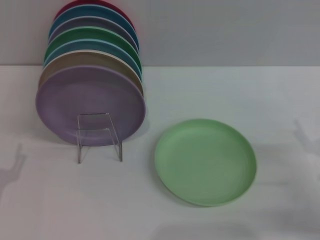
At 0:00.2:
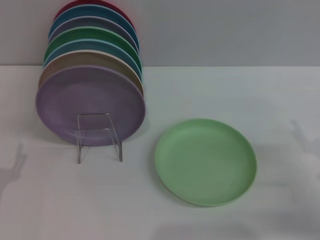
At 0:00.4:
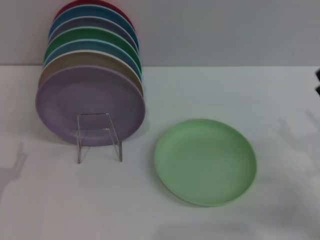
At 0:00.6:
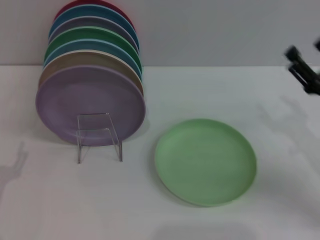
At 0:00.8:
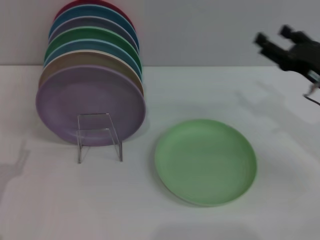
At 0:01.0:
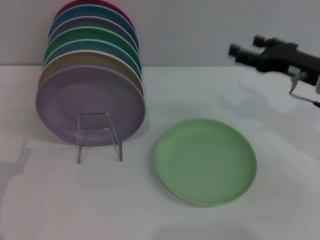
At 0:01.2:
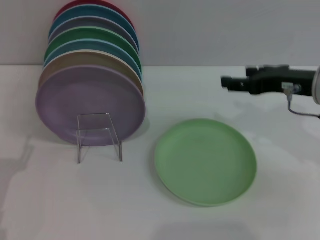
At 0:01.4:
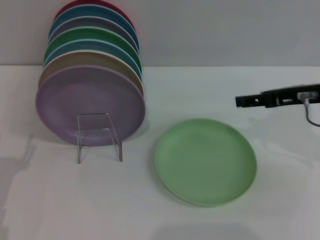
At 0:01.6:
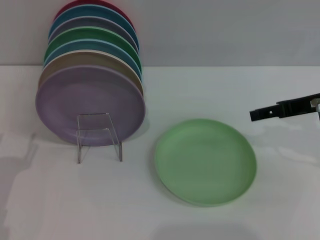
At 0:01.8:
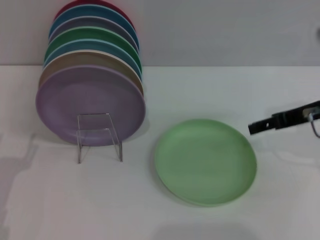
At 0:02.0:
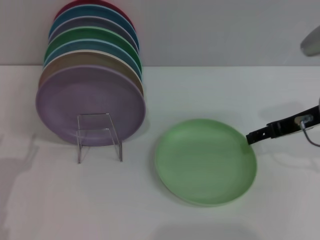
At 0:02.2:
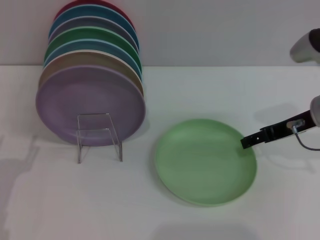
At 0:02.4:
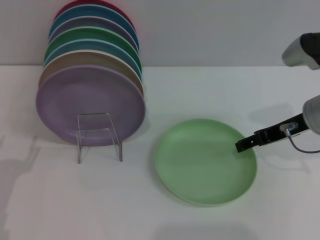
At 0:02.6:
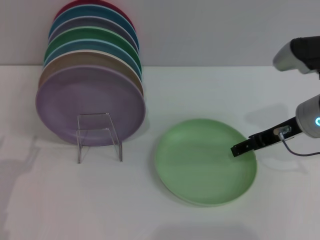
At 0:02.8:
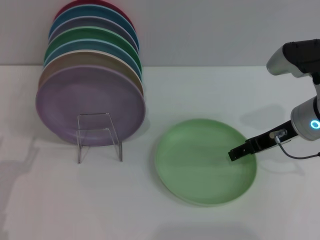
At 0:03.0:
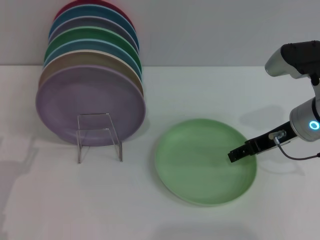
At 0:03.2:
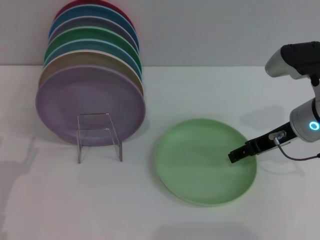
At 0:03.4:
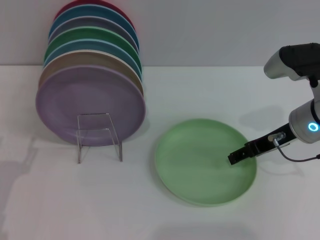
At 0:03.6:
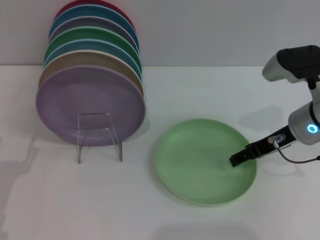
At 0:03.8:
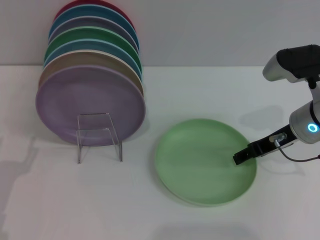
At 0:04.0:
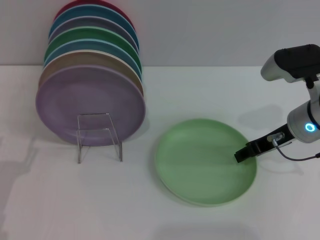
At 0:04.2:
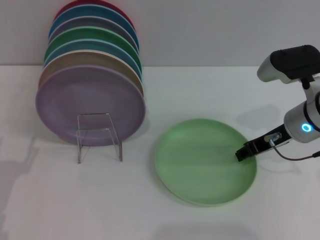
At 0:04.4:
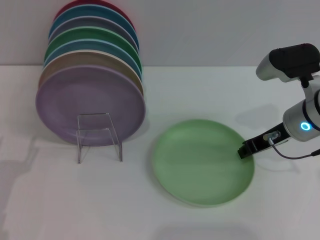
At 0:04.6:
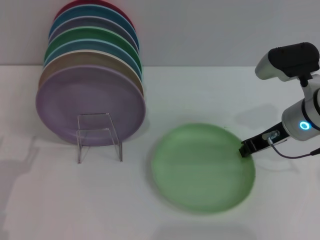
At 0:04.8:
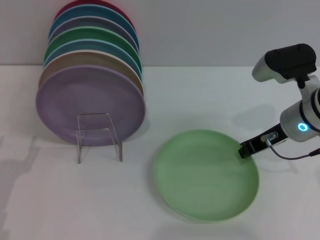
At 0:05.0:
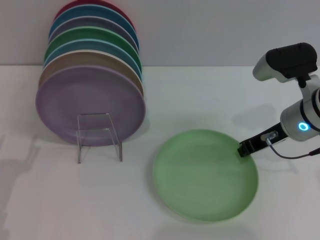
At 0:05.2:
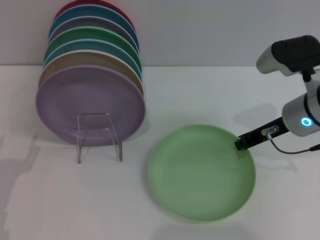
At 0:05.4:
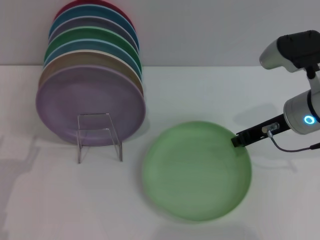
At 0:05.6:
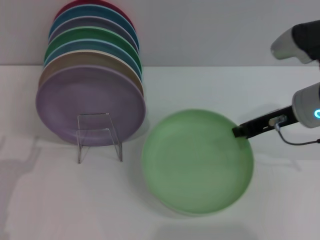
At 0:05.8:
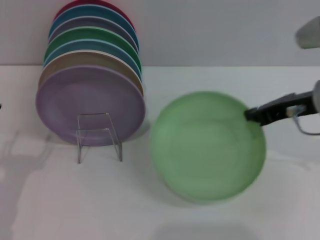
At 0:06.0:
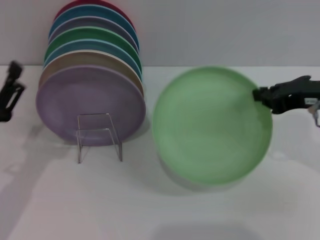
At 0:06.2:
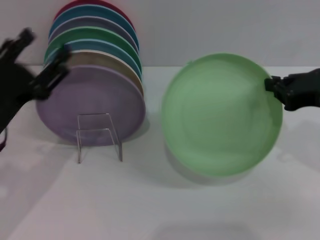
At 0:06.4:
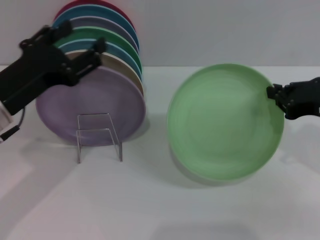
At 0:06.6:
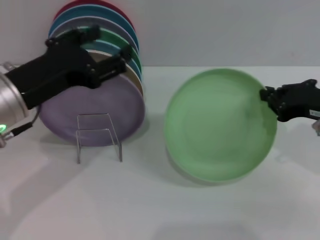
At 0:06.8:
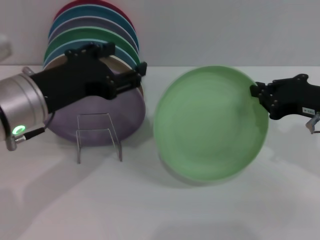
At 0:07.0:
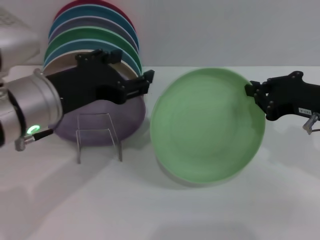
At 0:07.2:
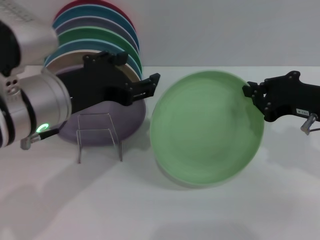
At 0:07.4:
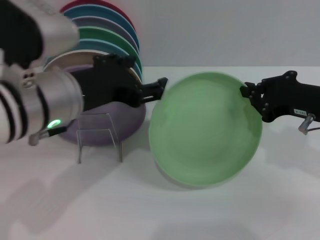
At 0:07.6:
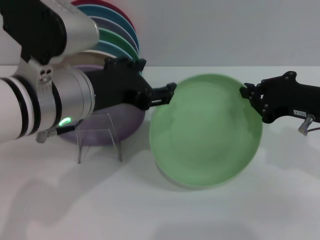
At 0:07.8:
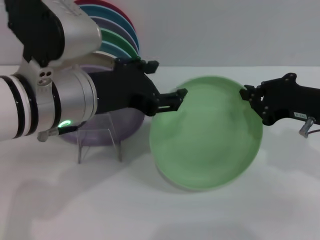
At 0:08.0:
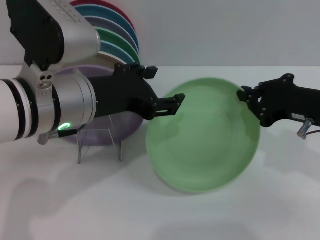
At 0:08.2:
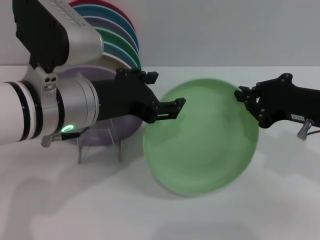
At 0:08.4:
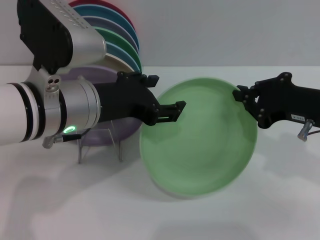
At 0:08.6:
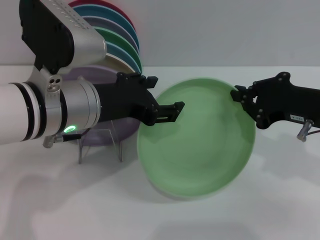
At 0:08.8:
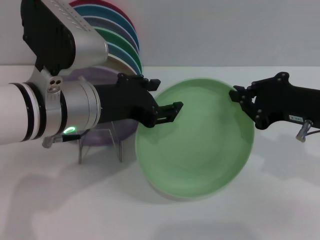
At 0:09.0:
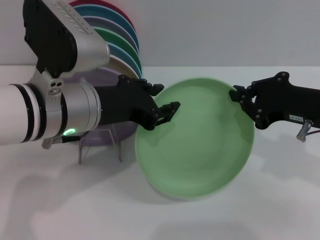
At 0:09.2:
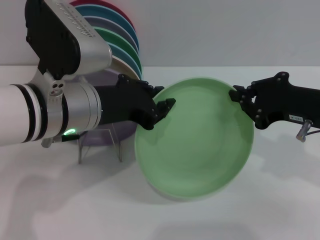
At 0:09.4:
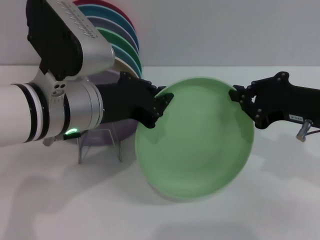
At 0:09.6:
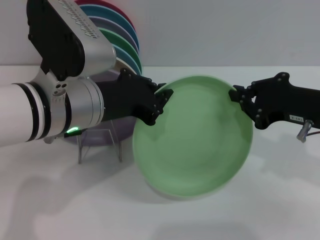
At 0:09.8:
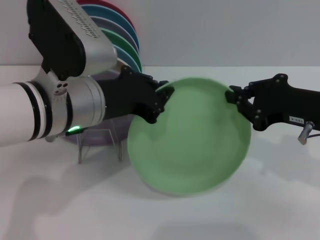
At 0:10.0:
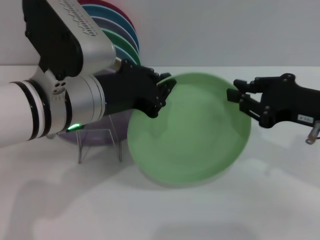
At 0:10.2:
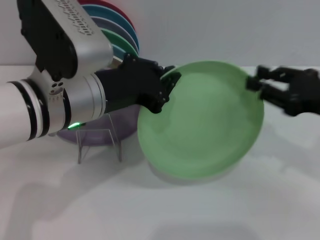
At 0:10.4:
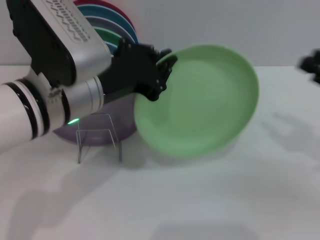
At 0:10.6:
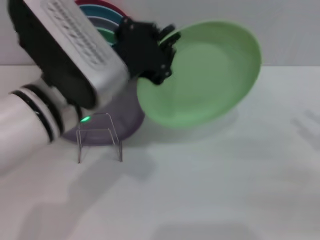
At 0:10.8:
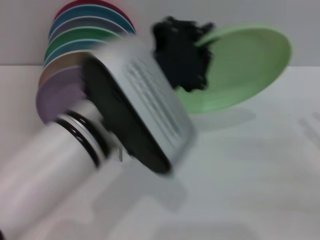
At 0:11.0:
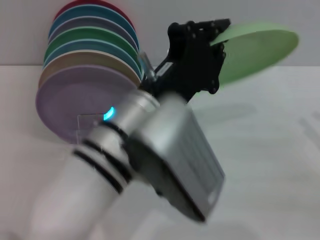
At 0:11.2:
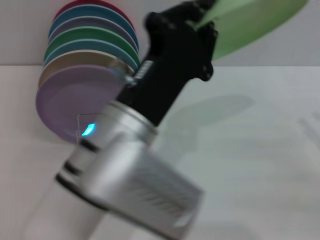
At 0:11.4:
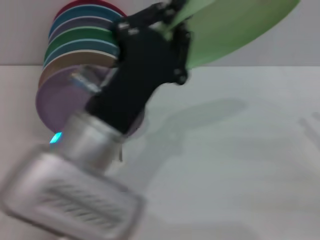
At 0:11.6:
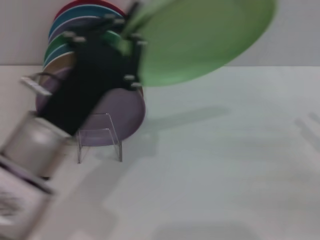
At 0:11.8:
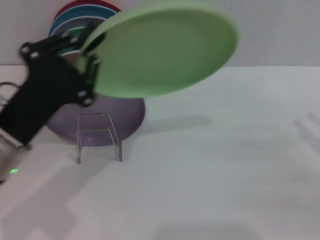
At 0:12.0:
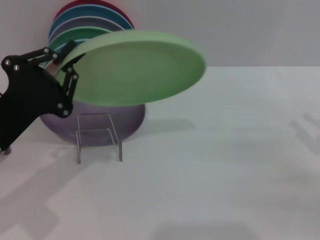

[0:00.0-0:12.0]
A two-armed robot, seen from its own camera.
Task of the whole recording: Grip the plate with one hand, pass it to the other, then set it on the shelf.
Step, 0:00.0 to 0:05.8: Pick up the plate with the right gripper.
Step, 0:06.0 to 0:10.2: Pass the plate from the right gripper to the left gripper.
0:00.0 to 0:01.6: The right gripper travels upward and forward by about 20 cm.
0:01.6 to 0:03.0: The right gripper travels downward by about 5 cm.
0:03.0 to 0:04.4: The right gripper closes.
0:04.4 to 0:06.0: The right gripper is displaced upward and backward by approximately 10 cm, and closes up.
0:06.0 to 0:07.6: The left gripper is displaced to the right, upward and forward by about 20 cm.
0:07.6 to 0:09.0: There are only small adjustments of the grippers.
0:09.0 to 0:10.4: The left gripper closes. The right gripper travels to the right by about 10 cm, and opens.
0:10.4 to 0:12.0: The left gripper heads to the left and downward, covering some 15 cm; the right gripper shifts by approximately 5 cm.

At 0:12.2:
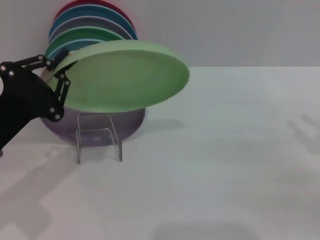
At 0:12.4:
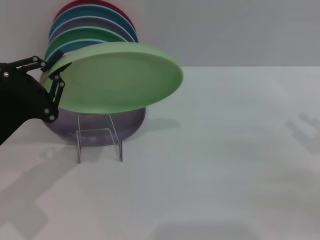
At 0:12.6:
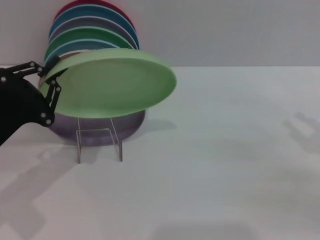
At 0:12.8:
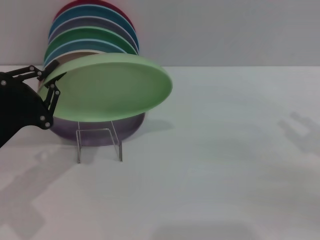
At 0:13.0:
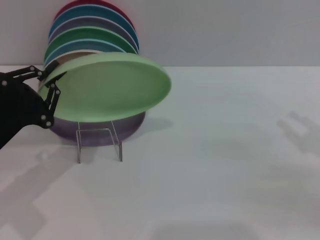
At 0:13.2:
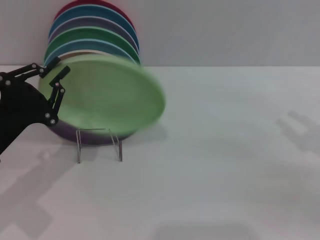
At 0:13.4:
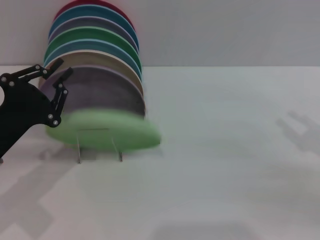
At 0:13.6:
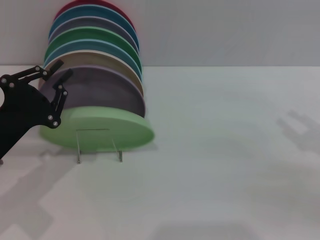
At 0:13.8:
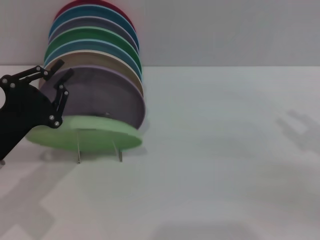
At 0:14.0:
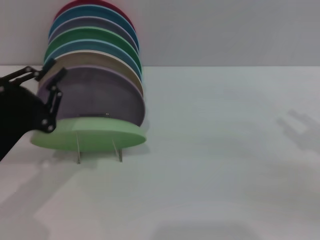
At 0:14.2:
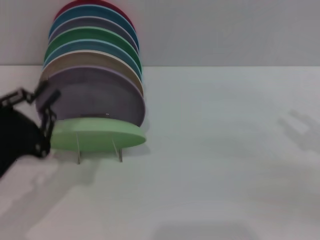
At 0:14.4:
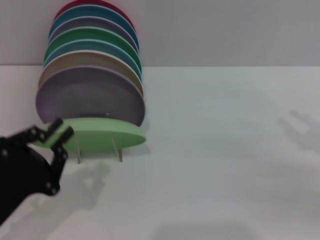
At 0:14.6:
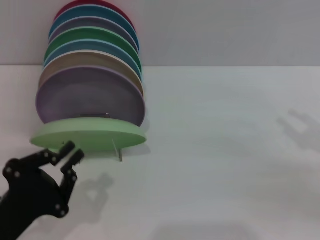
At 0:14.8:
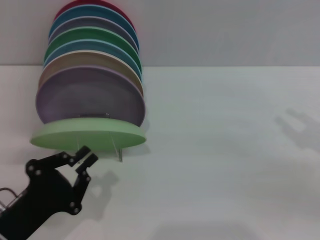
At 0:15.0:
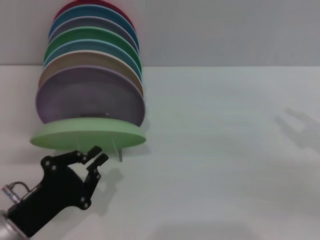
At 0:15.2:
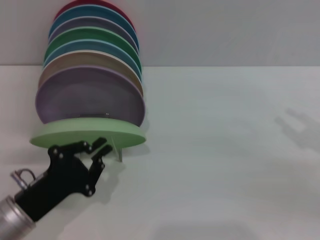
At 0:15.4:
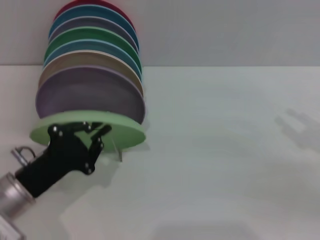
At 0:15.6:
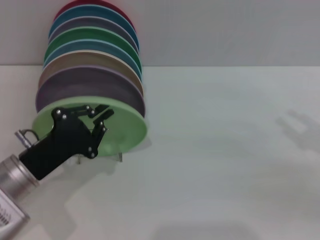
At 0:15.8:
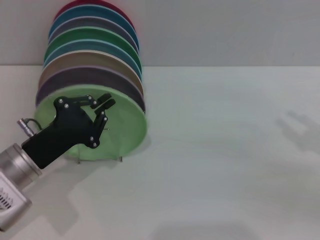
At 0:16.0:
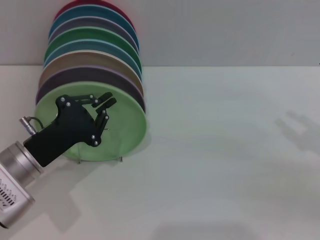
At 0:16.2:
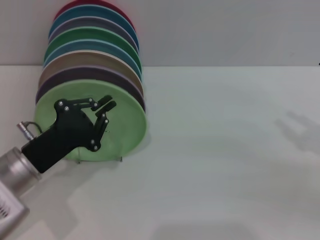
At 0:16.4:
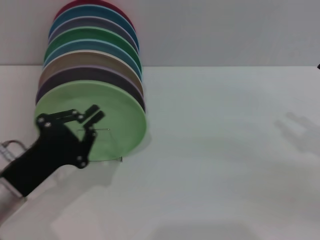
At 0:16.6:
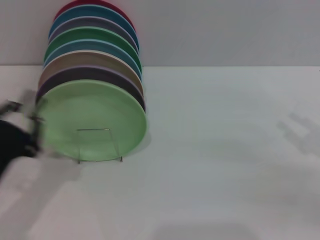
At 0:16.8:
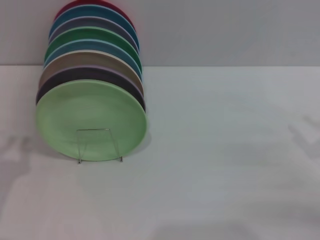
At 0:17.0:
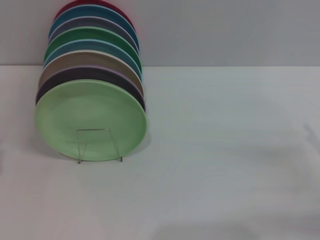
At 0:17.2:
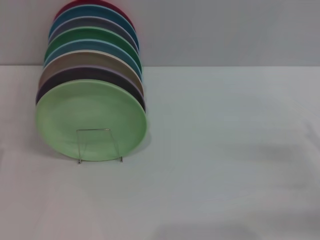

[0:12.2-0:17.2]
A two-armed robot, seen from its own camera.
Task of the whole recording: Grip the plate with one hand, pass it to the other, then set it on the shelf.
Step, 0:12.2 to 0:16.2: Place the plate on the shelf with the left gripper.
0:12.2 to 0:13.8: The grippers move only a little.
0:13.8 to 0:15.6: The left gripper travels backward and back again, roughly 10 cm each way.
0:15.6 to 0:17.2: The right gripper is displaced downward by roughly 5 cm, while the left gripper heads to the left and backward, covering some 15 cm, and opens.
